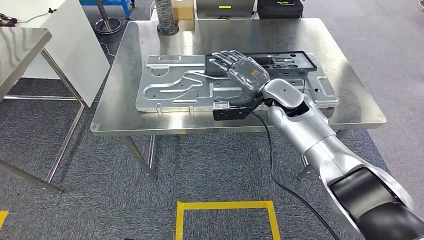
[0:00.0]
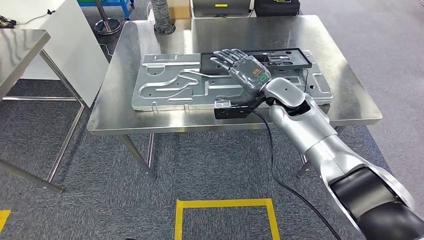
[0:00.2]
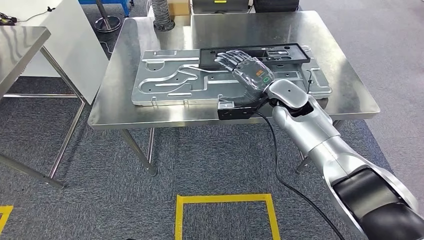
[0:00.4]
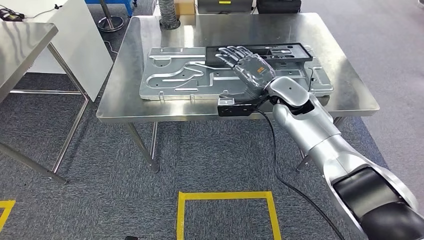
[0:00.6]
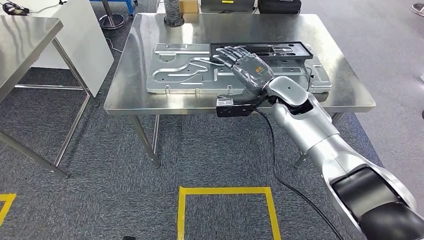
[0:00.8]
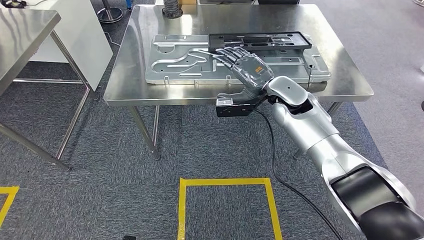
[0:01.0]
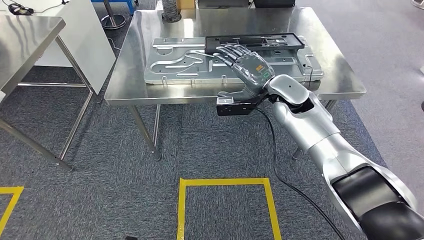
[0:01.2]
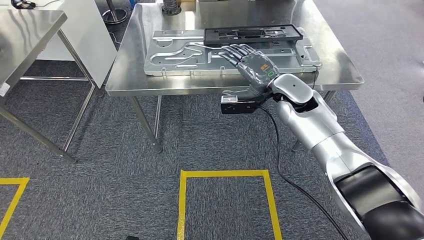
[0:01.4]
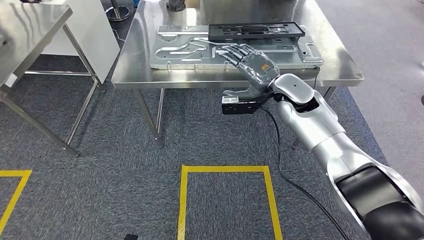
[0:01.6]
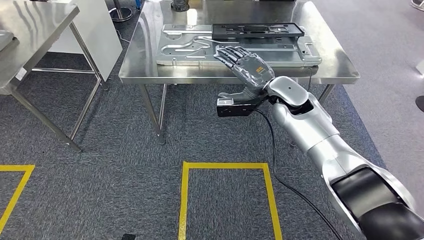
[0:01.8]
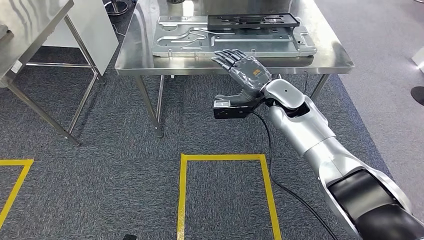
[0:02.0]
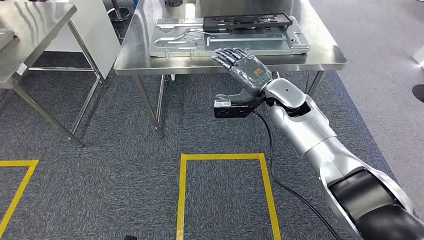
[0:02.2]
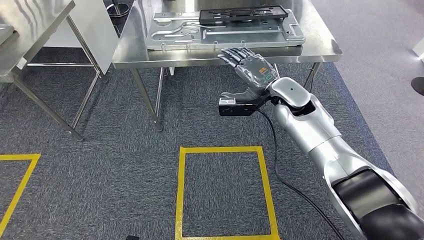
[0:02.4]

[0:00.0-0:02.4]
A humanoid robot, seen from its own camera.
Step, 0:00.0 to 0:02.4: Move to the initial position of the shelf.

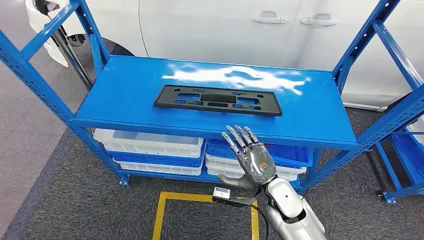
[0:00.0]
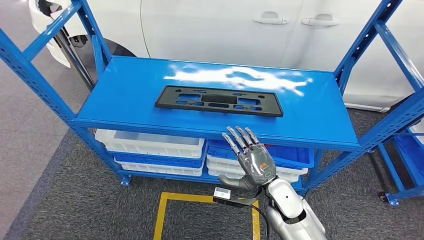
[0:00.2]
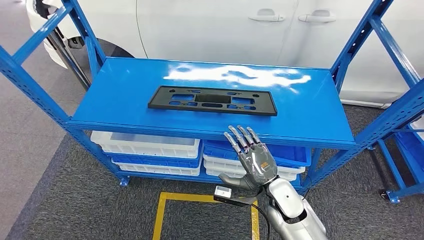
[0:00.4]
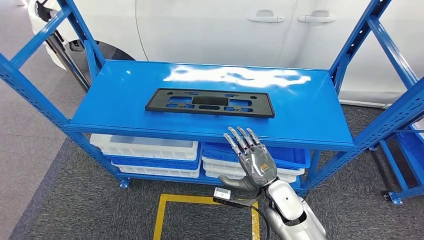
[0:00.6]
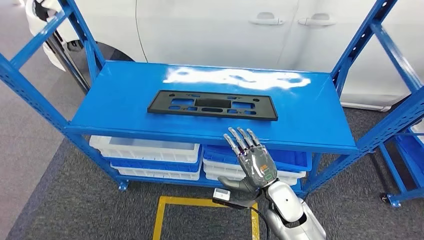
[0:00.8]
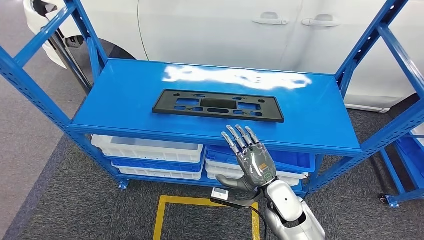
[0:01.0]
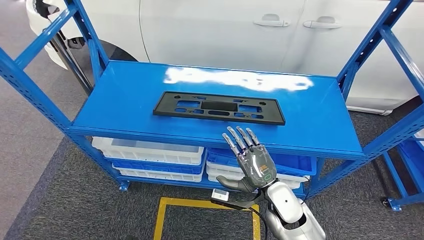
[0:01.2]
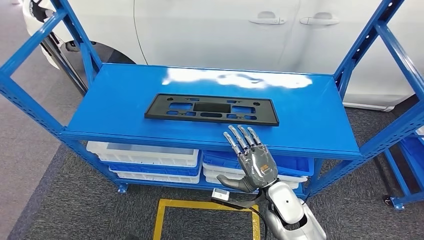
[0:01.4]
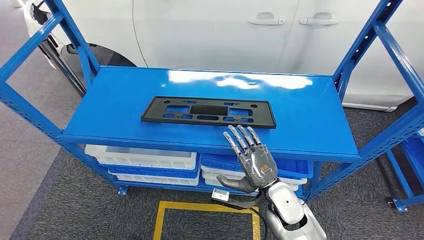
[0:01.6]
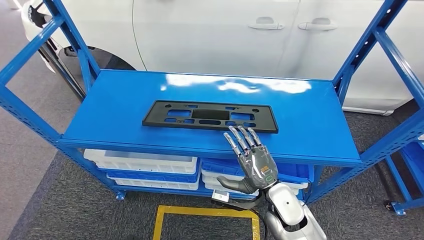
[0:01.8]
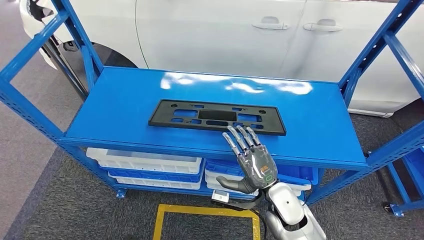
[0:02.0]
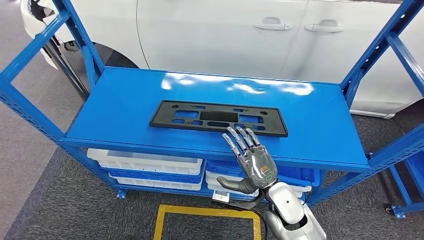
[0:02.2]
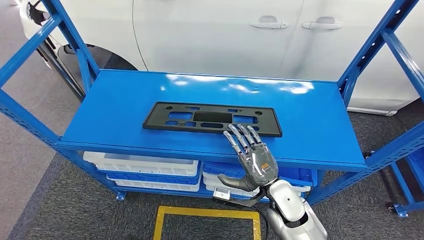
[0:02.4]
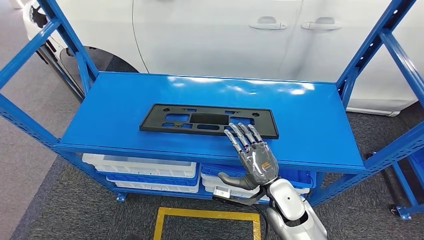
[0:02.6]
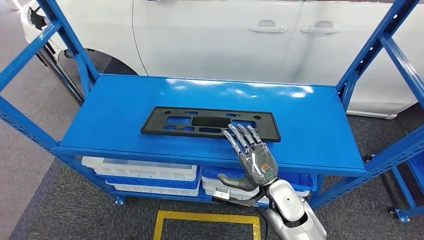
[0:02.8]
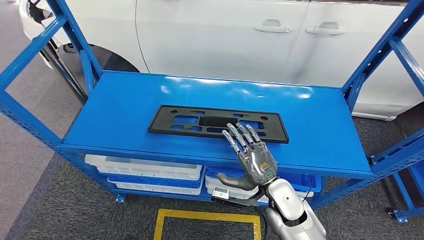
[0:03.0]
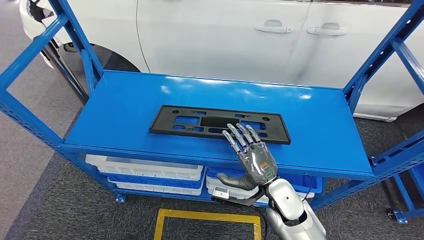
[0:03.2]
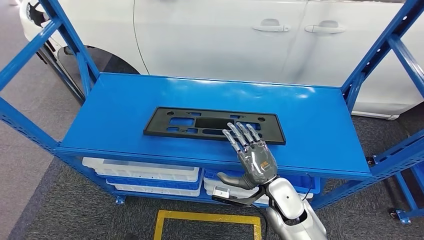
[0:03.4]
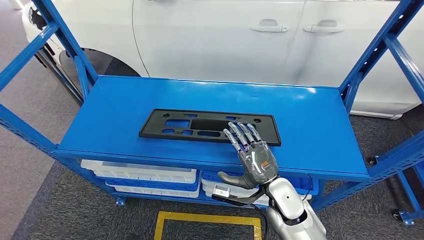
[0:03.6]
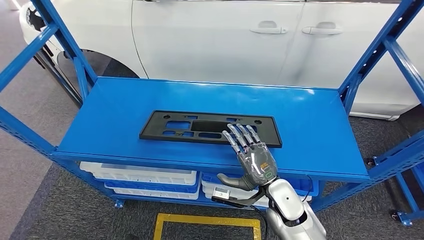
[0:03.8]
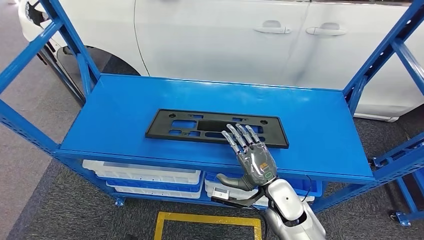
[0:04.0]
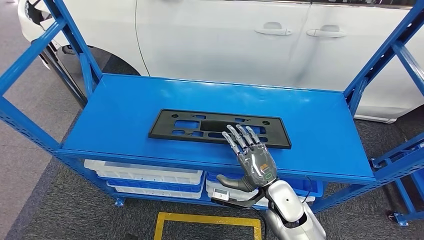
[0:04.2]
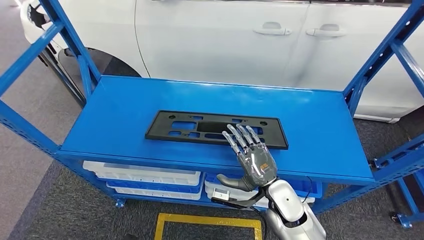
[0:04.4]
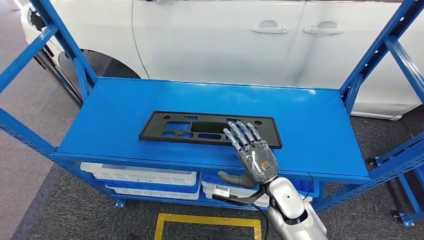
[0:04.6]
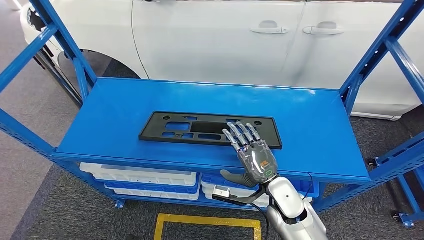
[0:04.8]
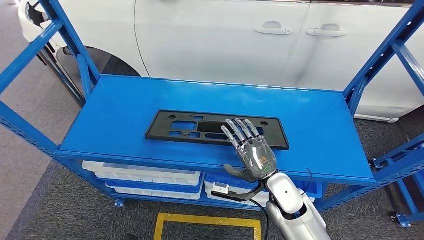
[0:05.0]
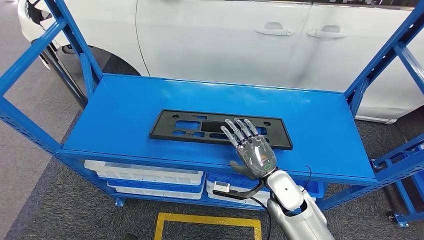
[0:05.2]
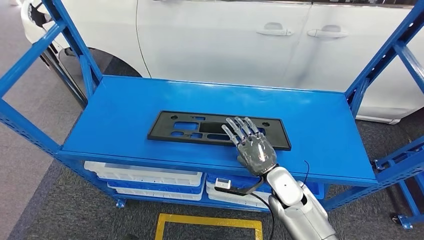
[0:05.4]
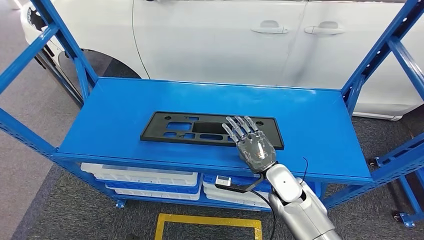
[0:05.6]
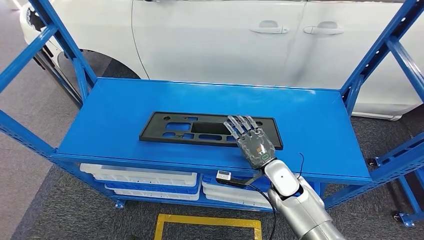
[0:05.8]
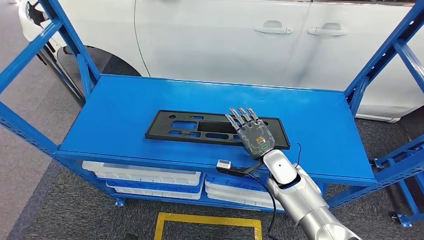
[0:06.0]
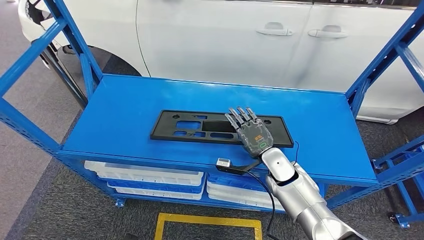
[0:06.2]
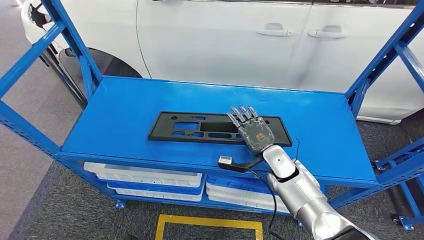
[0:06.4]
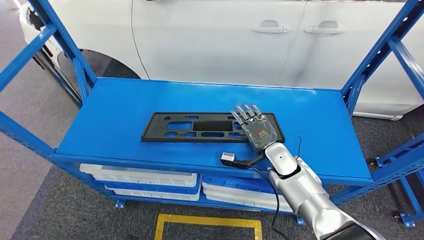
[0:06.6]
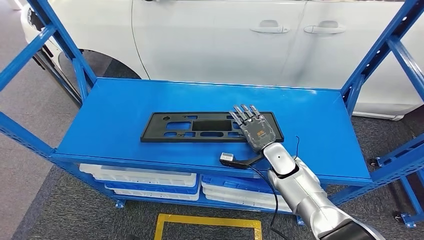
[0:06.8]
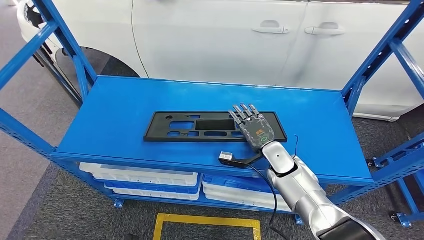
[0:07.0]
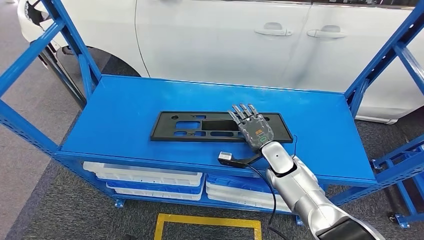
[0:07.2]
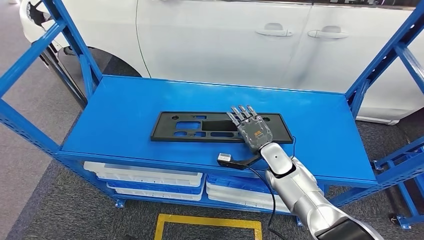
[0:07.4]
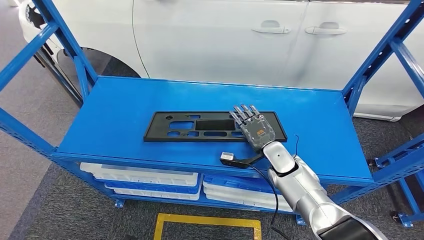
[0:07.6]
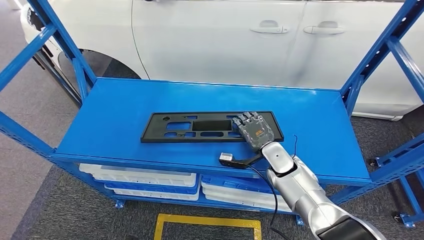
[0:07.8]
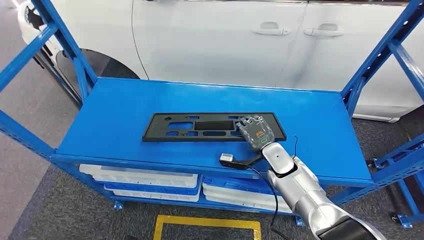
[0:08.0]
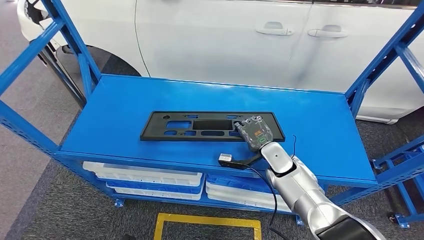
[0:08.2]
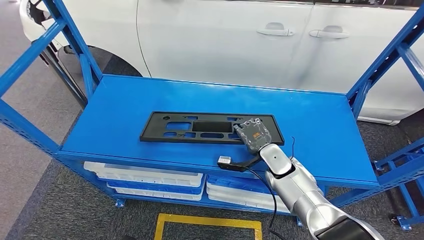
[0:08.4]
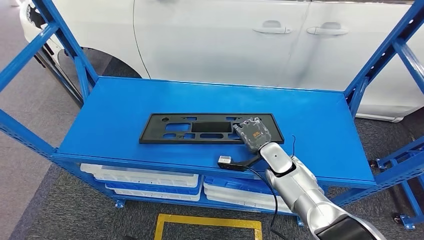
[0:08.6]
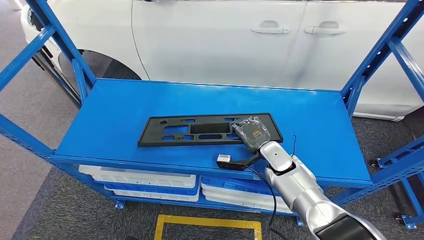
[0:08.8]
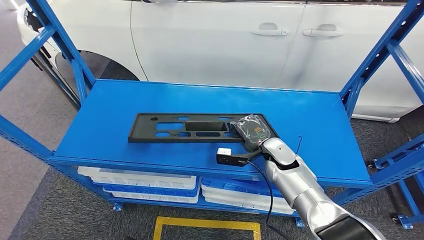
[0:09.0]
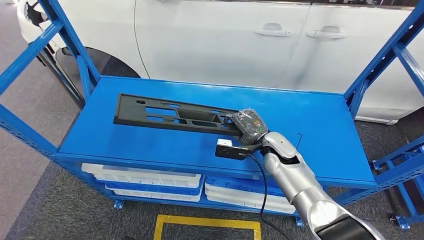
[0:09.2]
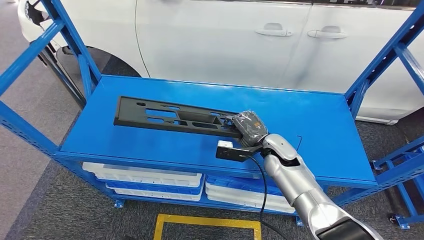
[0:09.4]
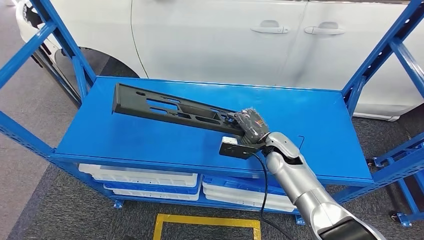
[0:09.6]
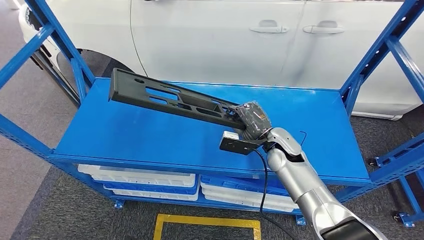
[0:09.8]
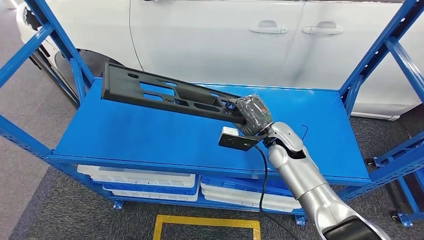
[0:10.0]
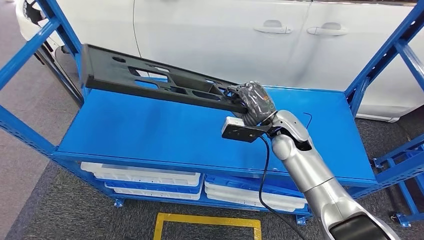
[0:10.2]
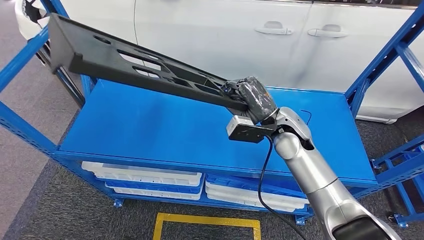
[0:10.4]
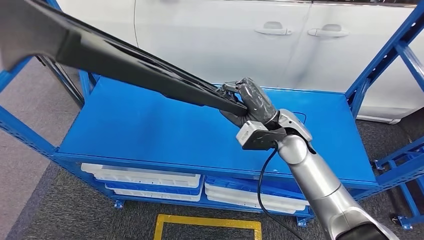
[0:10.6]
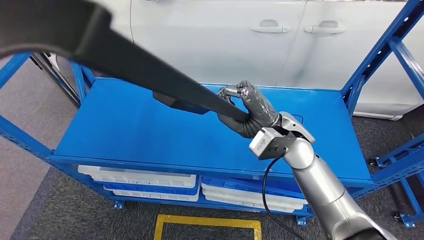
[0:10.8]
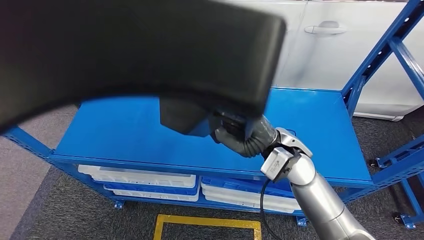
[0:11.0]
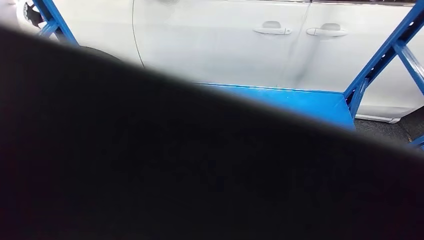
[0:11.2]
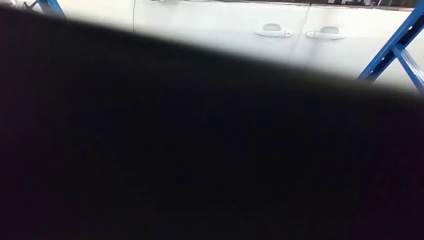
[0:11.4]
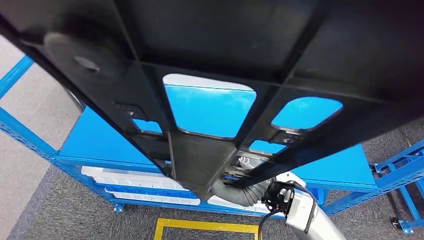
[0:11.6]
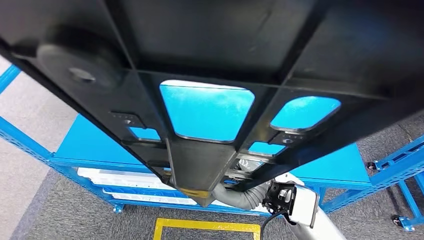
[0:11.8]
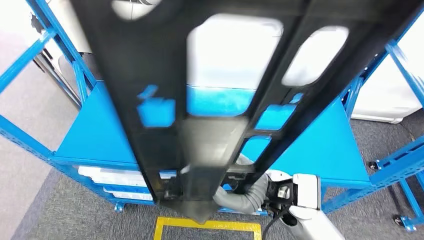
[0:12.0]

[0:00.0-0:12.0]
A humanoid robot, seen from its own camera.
Step, 0:00.0 to 0:09.4: Pick up the large material from the shelf.
0:04.4 to 0:06.0: The right hand is displaced forward by approximately 10 cm.
0:06.0 to 0:07.6: The hands move only a little.

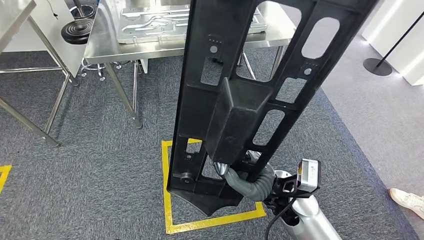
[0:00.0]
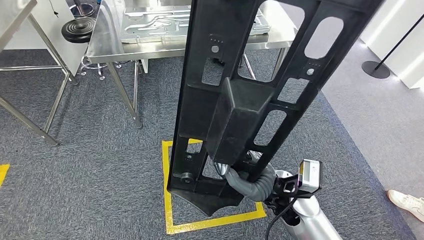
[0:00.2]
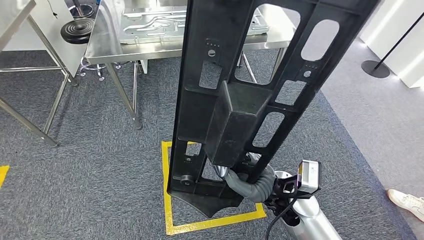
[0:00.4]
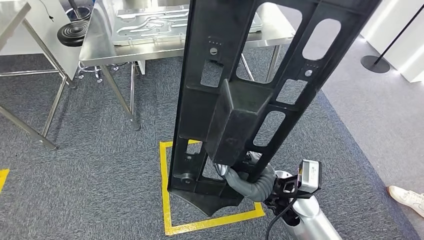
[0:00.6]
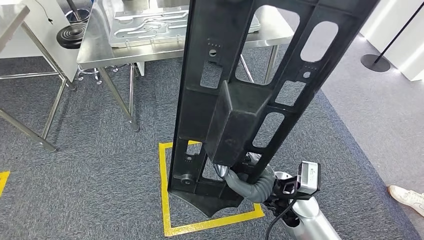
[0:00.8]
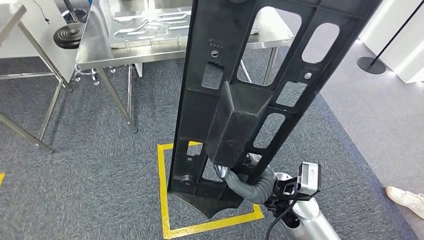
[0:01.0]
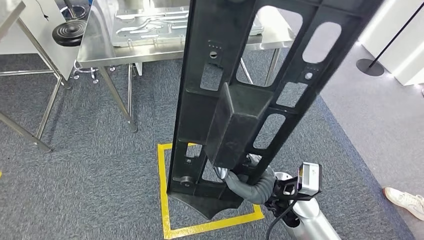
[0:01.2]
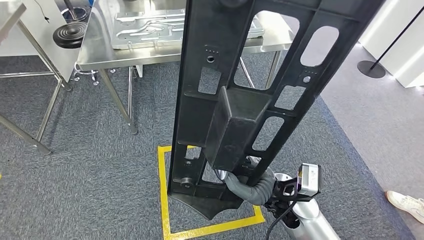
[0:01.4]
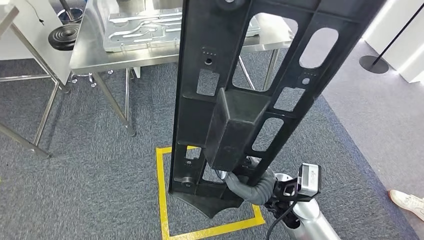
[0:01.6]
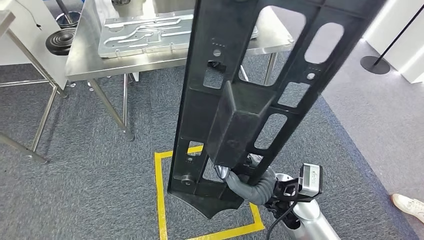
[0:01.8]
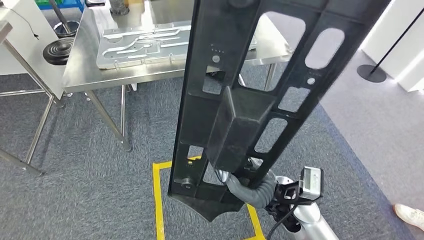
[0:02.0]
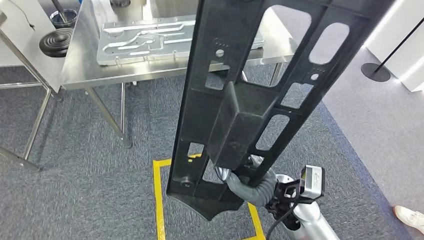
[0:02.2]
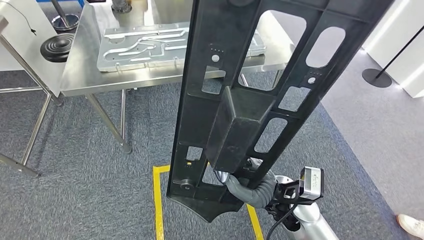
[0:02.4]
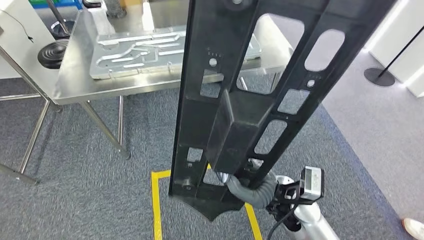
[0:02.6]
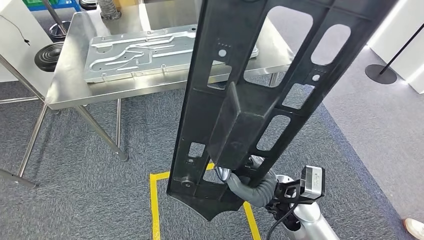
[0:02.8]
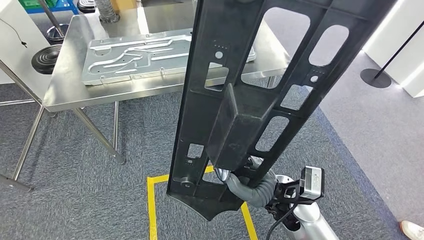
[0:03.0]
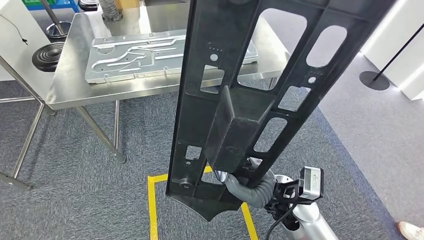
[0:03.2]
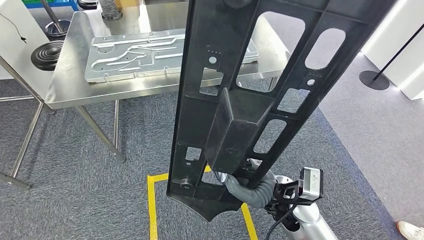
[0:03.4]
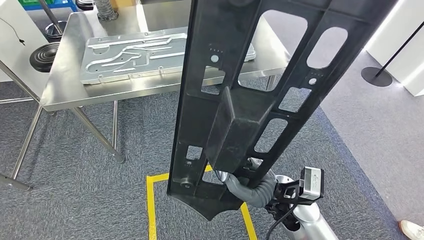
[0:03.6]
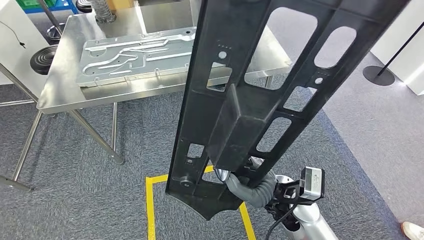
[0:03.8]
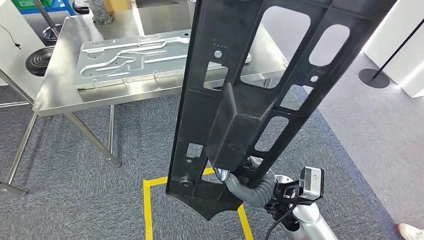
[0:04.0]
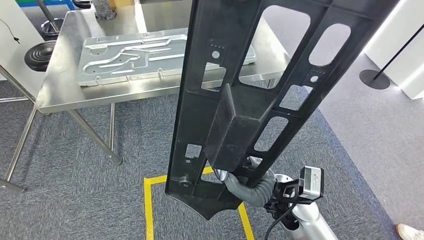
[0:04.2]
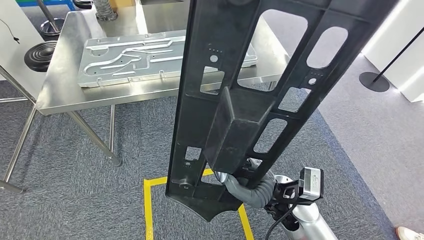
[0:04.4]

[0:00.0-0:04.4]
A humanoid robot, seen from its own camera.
0:03.0 to 0:04.4: Both hands stay put.
